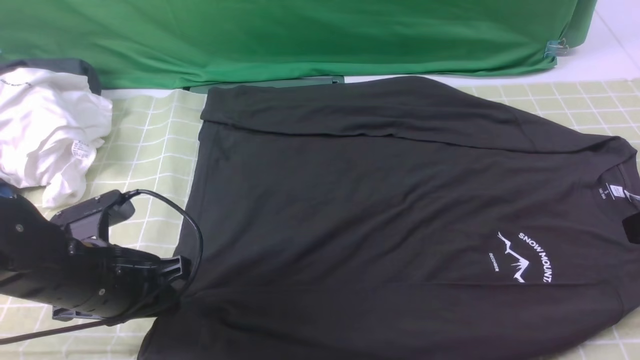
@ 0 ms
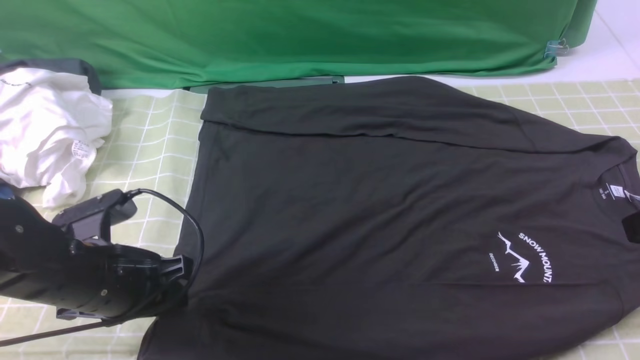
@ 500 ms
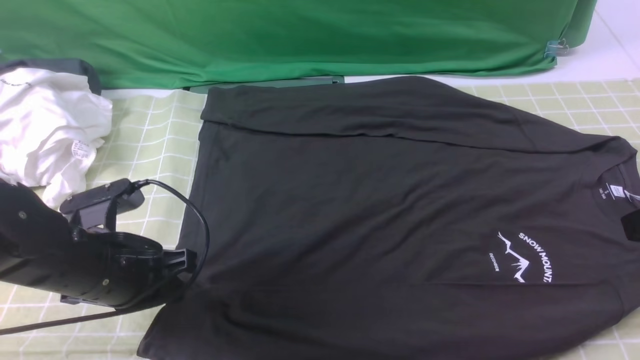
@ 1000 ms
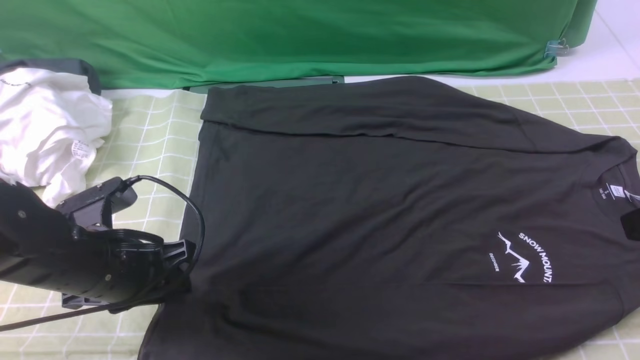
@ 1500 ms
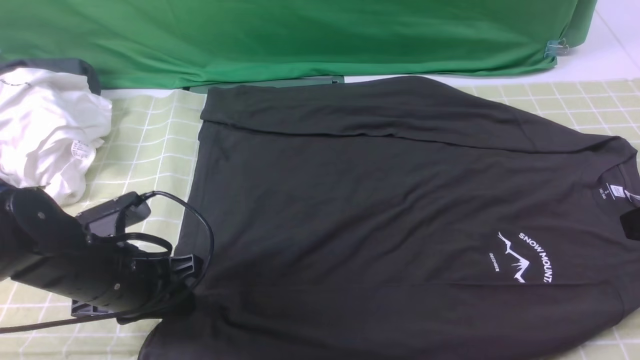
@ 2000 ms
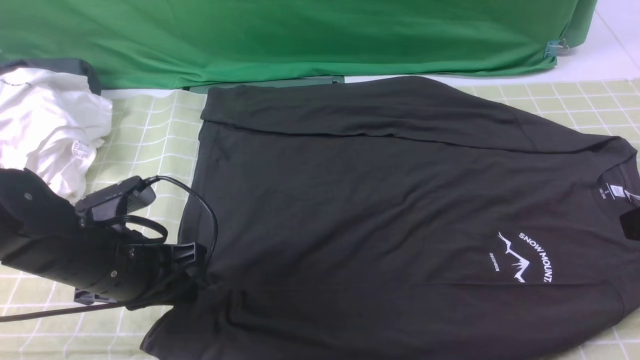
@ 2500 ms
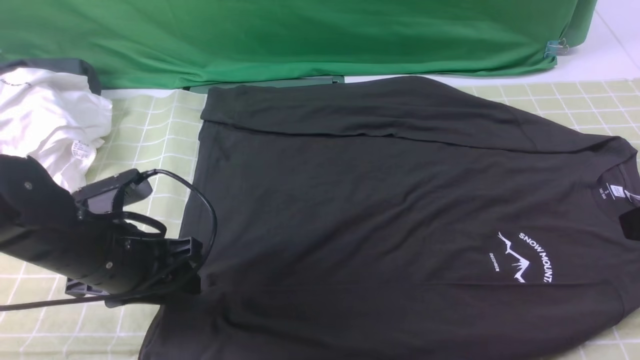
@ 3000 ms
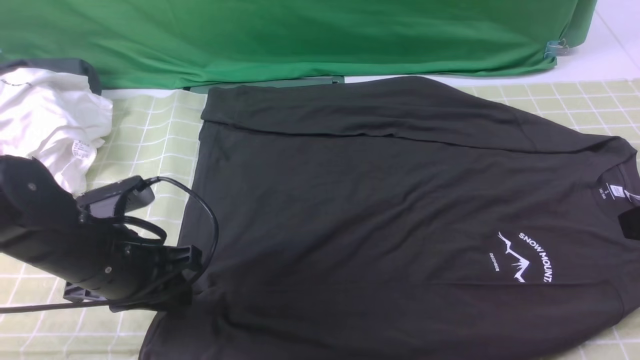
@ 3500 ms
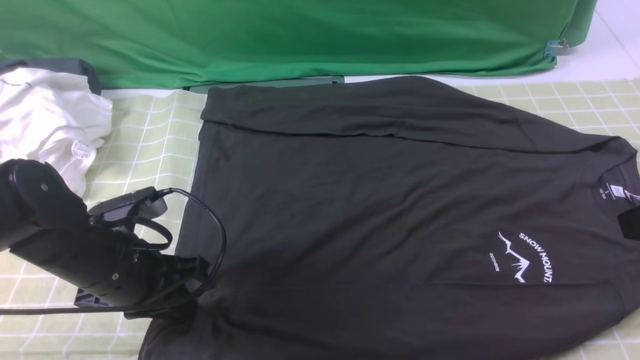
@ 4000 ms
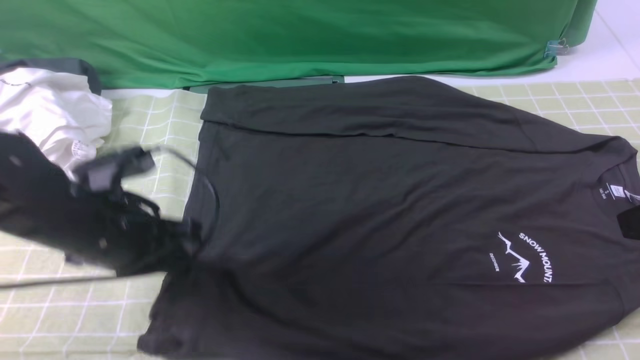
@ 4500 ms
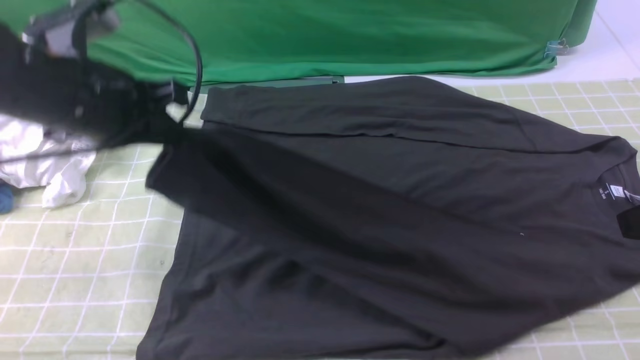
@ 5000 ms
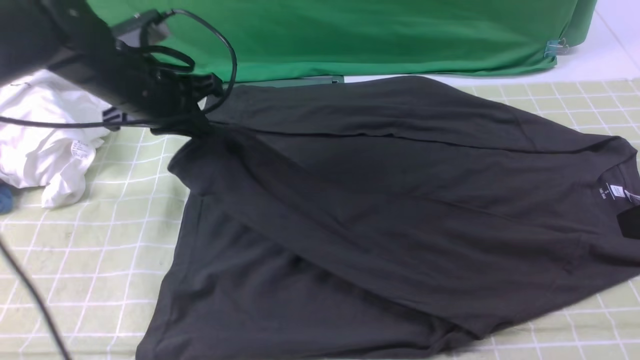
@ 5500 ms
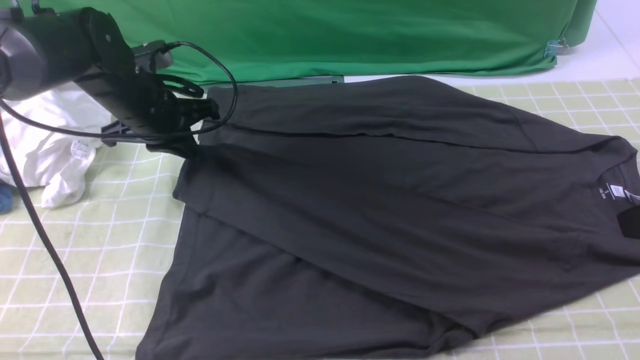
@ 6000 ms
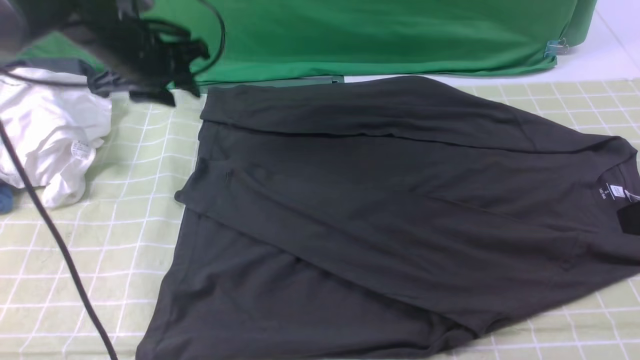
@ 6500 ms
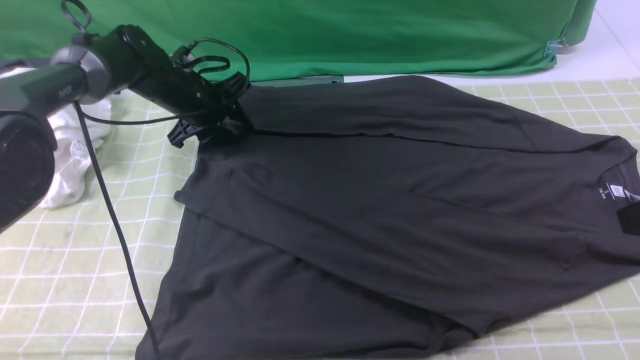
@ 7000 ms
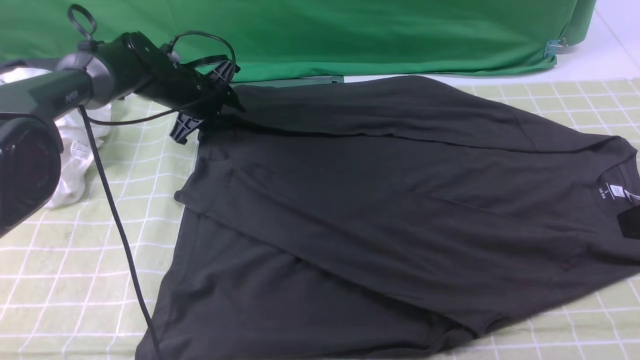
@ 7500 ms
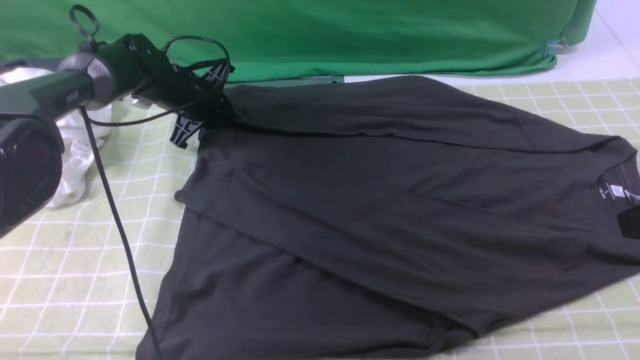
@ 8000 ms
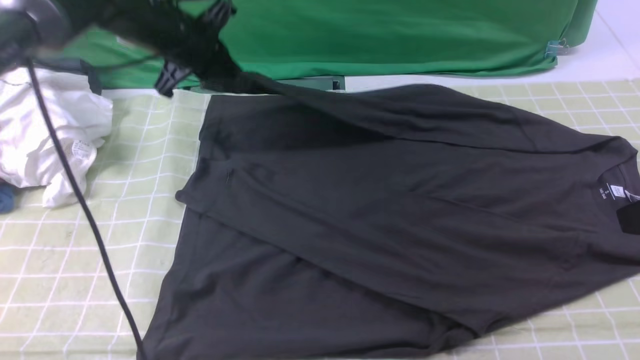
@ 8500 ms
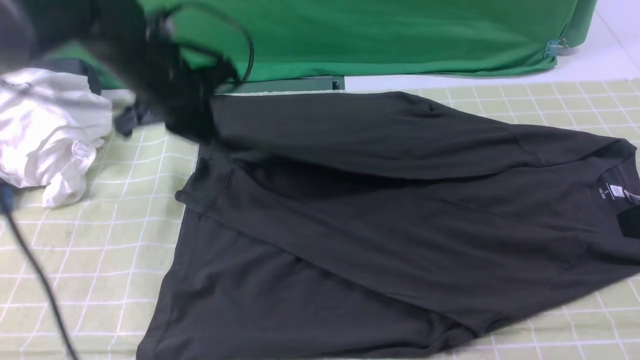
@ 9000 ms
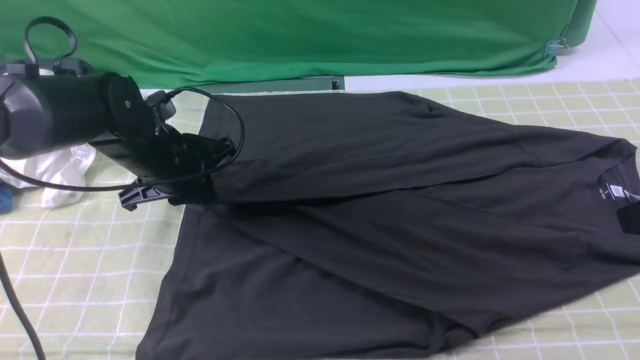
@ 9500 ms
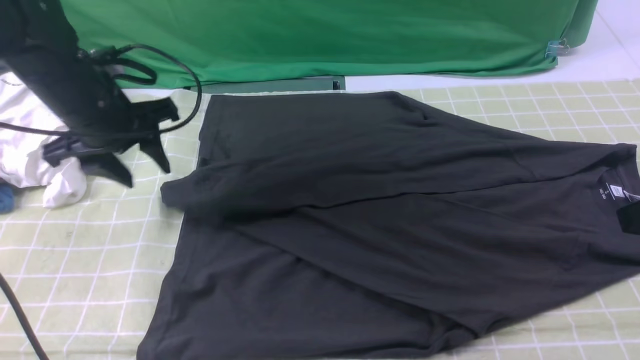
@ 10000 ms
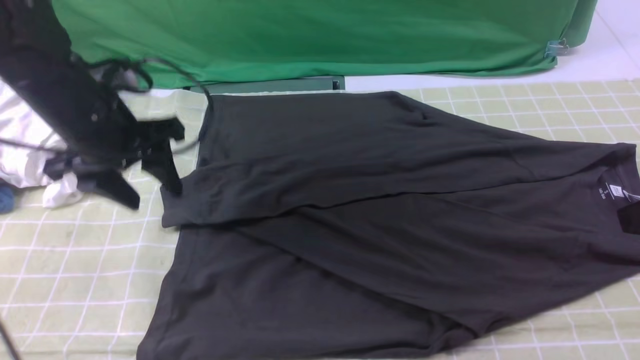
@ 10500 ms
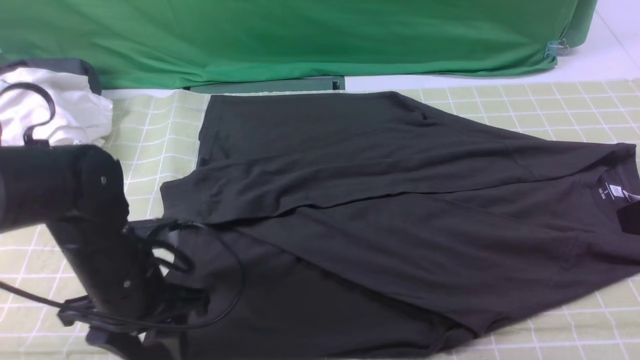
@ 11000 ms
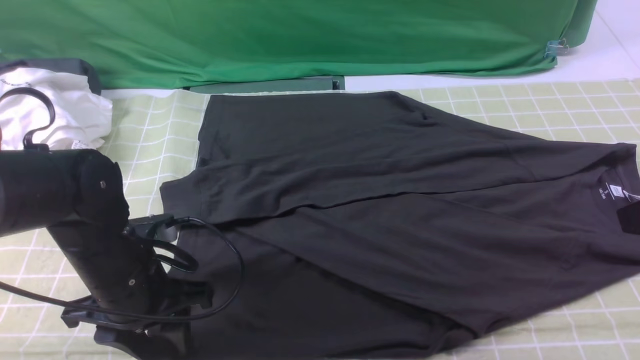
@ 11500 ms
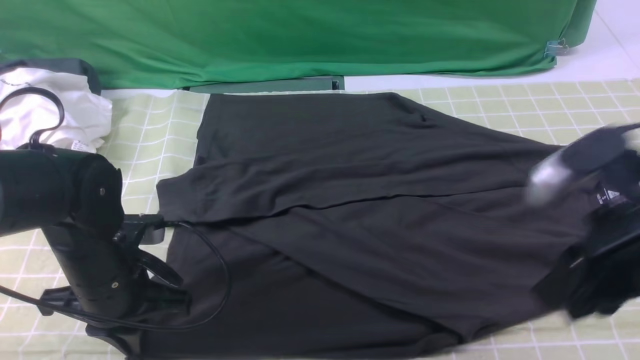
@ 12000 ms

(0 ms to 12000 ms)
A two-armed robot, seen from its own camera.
Step, 0 ms - 6000 ms: use the left arm to drag and place the cuff at the centered position on the left edge of the fabric.
Step, 6500 ms - 8000 ms: use the left arm to clamp the cuff farthest from it.
Step, 8500 ms - 10000 ms: use the left arm to drag and drop the cuff onto the cuff closest to the left arm.
0 ms - 4000 ms: There are only small adjustments of the grippers.
4000 ms - 6000 ms: The left gripper heads forward, covering approximately 20 cm.
6000 ms - 8000 ms: The left gripper heads forward and downward, covering about 10 cm, and opens, then closes again.
8000 ms - 10000 ms: The left gripper heads backward and upward, covering about 20 cm, and opens.
10000 ms - 12000 ms: The right gripper is displaced to the left by approximately 10 cm; the left gripper is displaced backward and downward by approximately 15 cm, and closes.

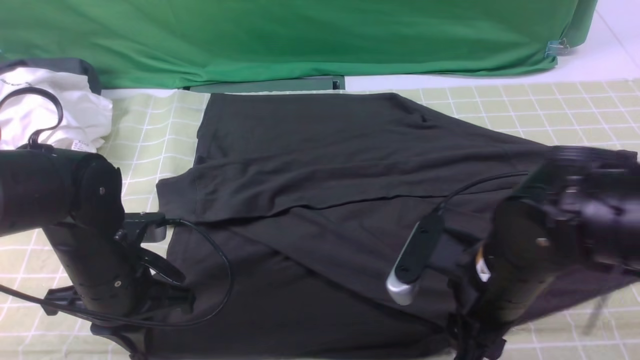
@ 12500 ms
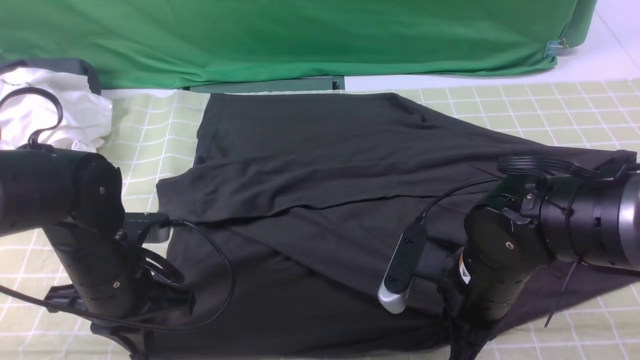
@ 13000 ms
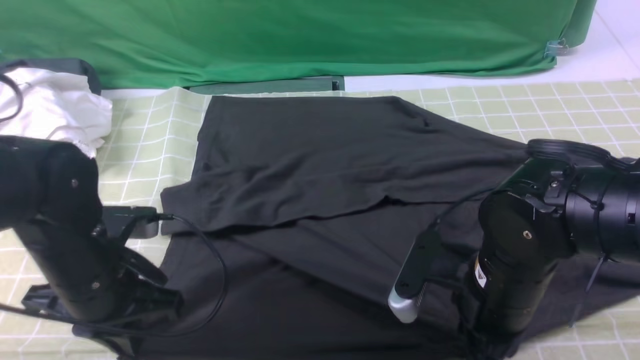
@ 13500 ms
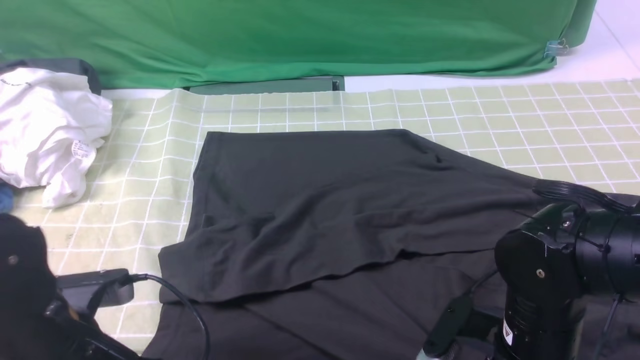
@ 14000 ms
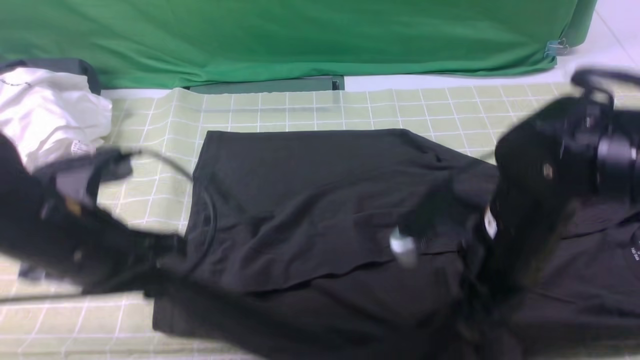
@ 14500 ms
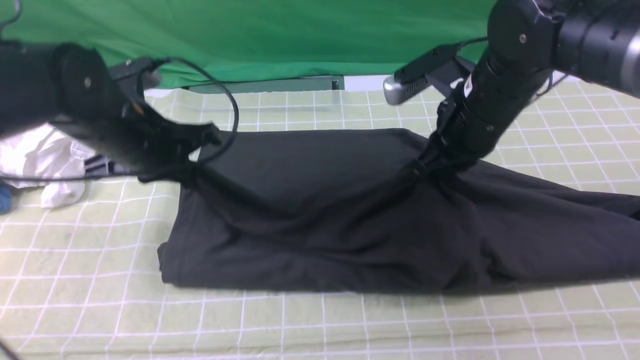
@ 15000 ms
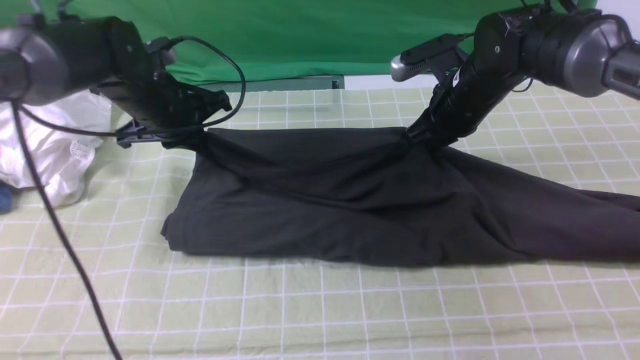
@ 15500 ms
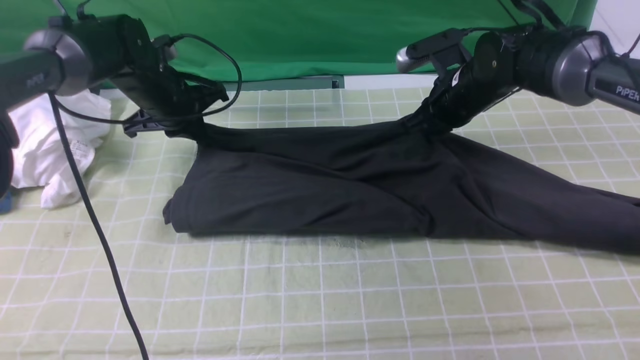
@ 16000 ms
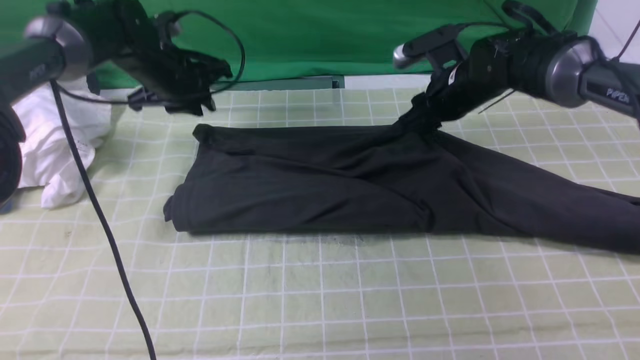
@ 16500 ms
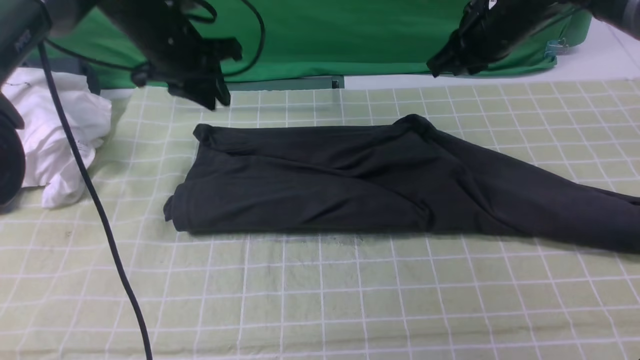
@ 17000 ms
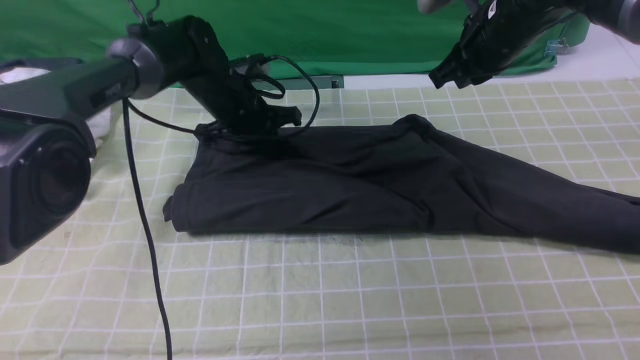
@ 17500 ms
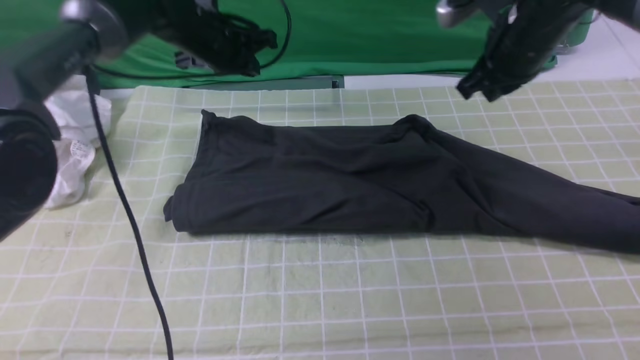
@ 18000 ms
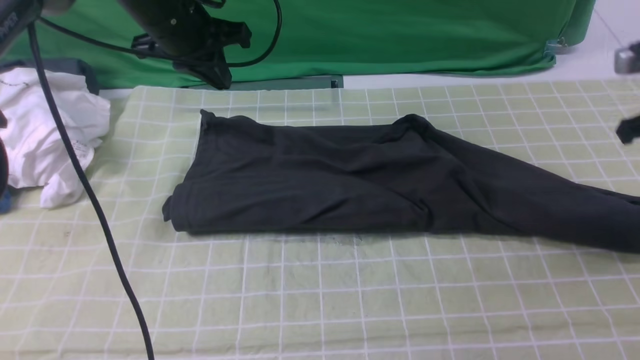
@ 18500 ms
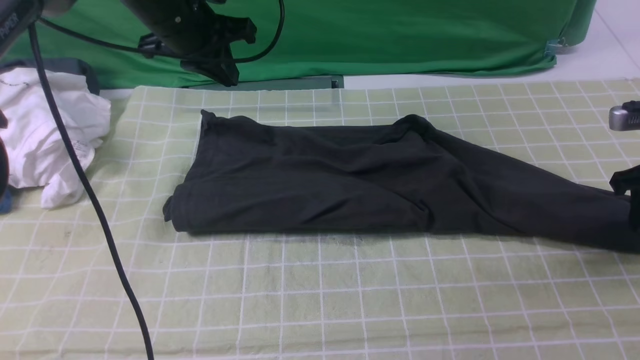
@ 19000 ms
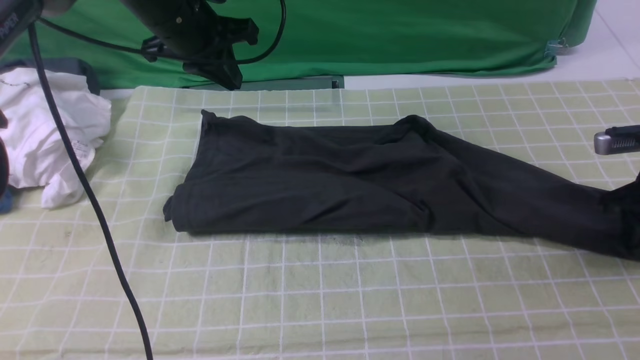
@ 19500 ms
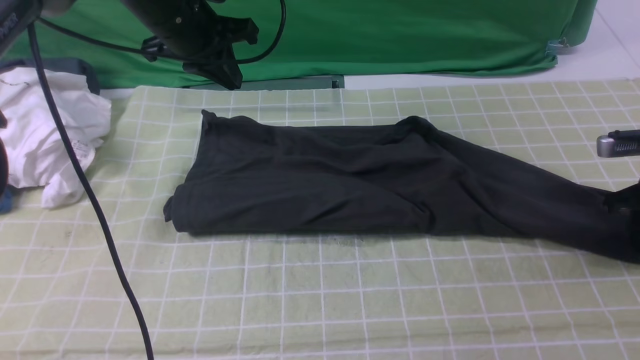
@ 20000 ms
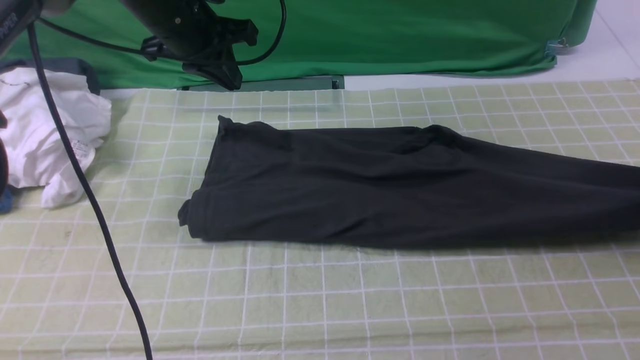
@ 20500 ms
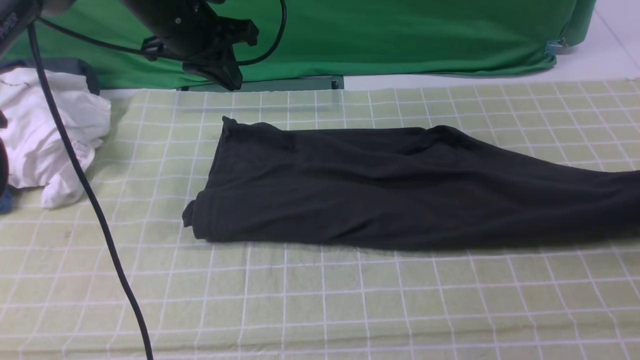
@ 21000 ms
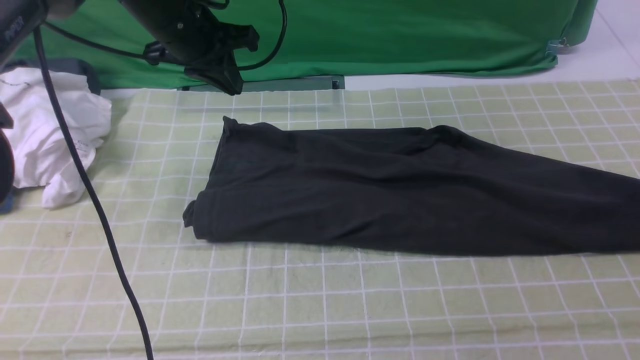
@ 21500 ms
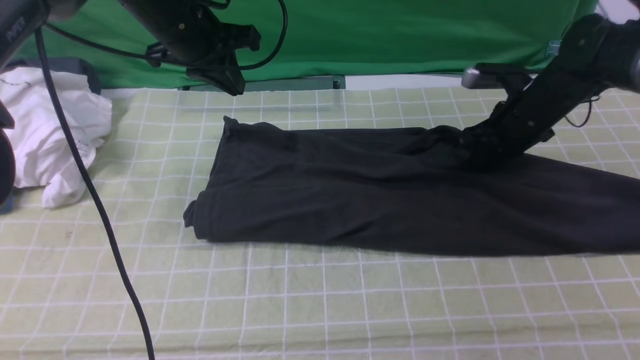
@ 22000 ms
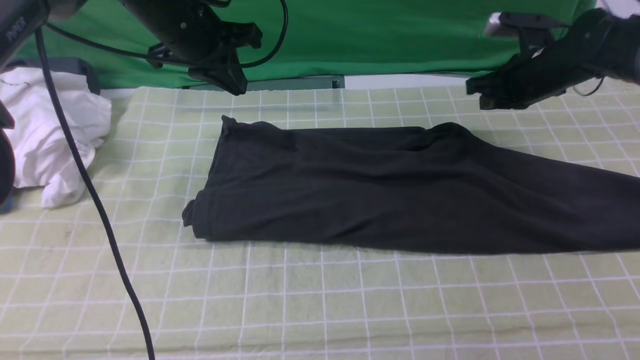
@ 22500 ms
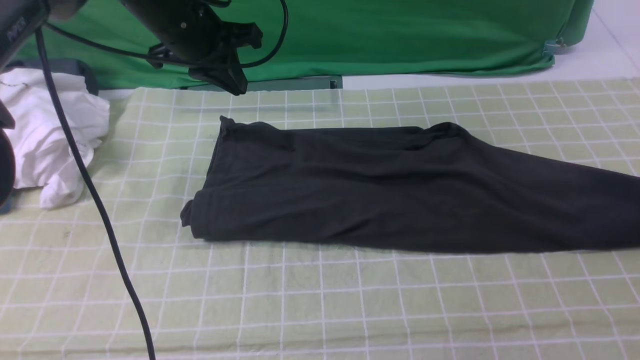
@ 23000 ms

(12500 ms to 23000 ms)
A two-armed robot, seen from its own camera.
Step, 13500 ms - 16500 ms: use both arms to drag the lower edge of the fabric forward and fold it over the upper edge.
12500 ms - 14500 ms: The left gripper moves upward, some 10 cm, while the right gripper closes up.
14500 ms - 16500 ms: Both grippers travel together forward, about 25 cm. The right gripper opens, while the left gripper opens its fingers.
16500 ms - 19000 ms: The right gripper is displaced to the right and backward by approximately 25 cm, and closes, then opens again. The left gripper travels upward by roughly 10 cm, and closes its fingers.
19000 ms - 21000 ms: The right gripper goes about 10 cm to the right, and closes and opens again.
21000 ms - 23000 ms: The right gripper moves about 20 cm to the left and comes back, and closes.
